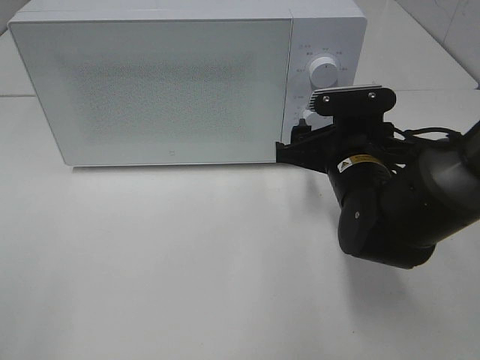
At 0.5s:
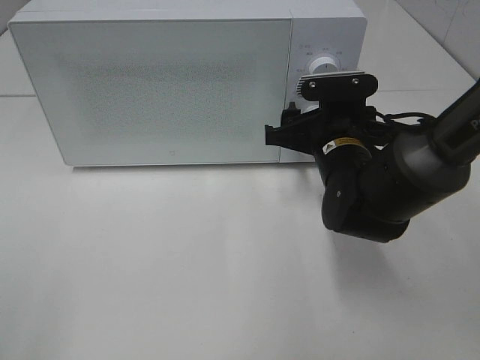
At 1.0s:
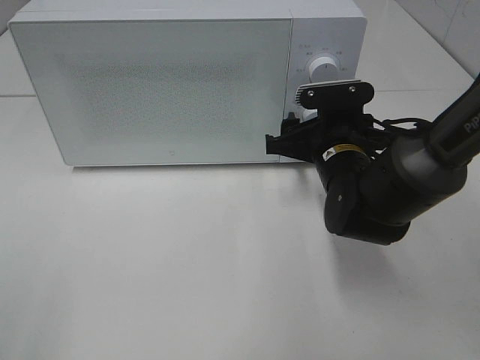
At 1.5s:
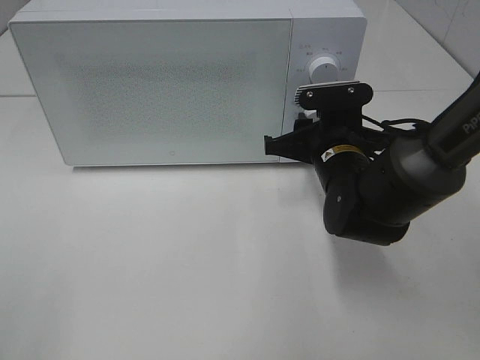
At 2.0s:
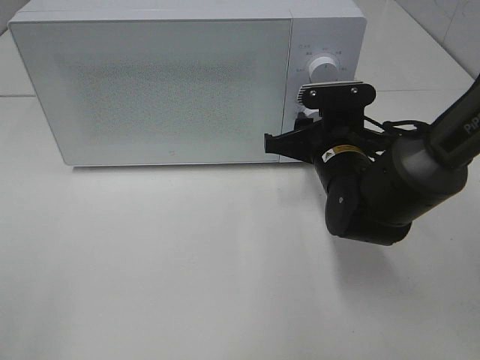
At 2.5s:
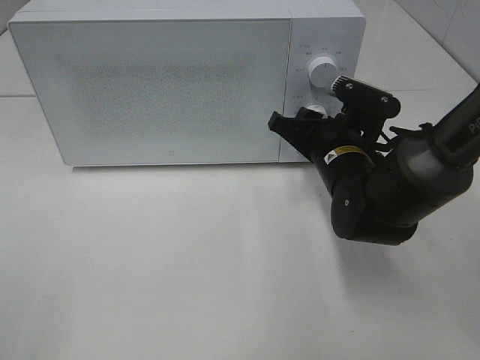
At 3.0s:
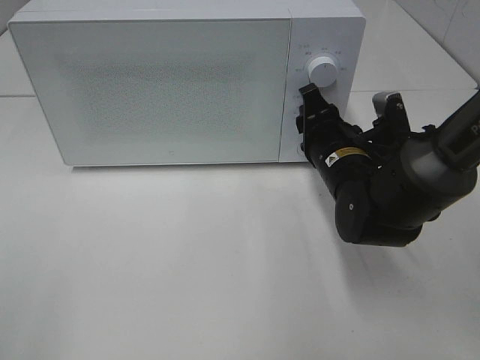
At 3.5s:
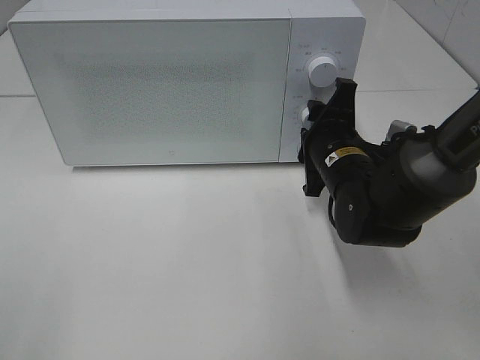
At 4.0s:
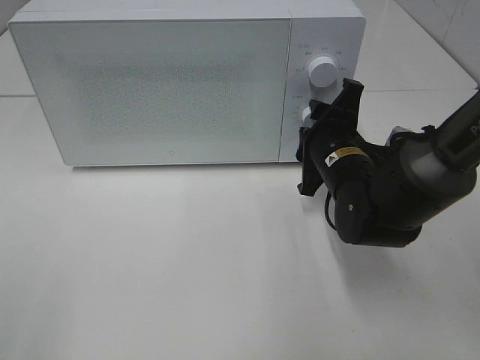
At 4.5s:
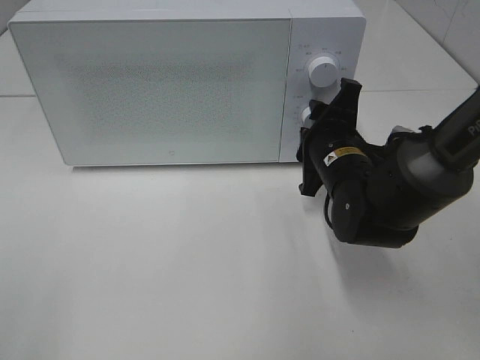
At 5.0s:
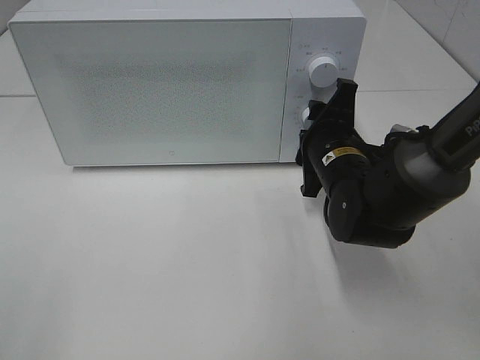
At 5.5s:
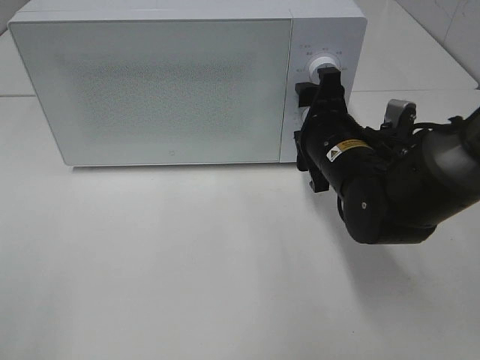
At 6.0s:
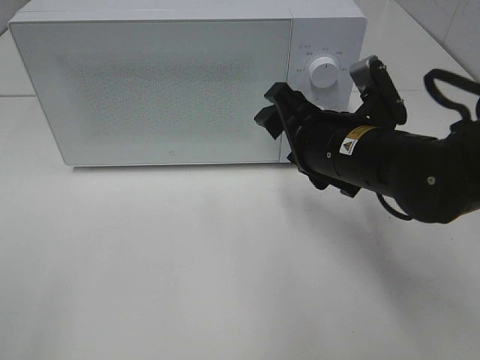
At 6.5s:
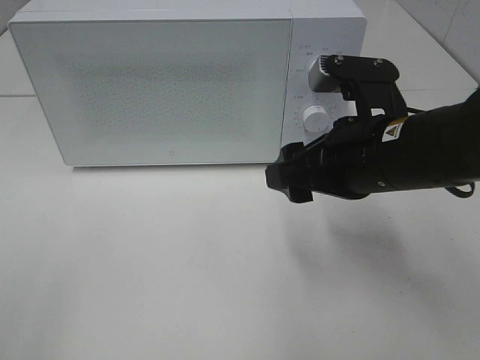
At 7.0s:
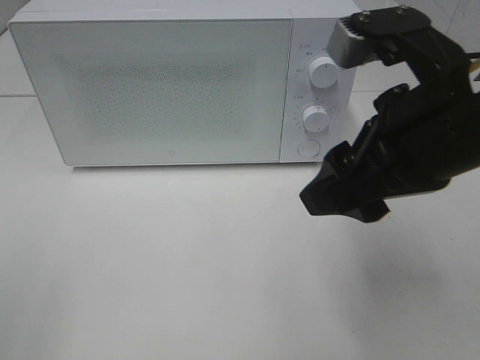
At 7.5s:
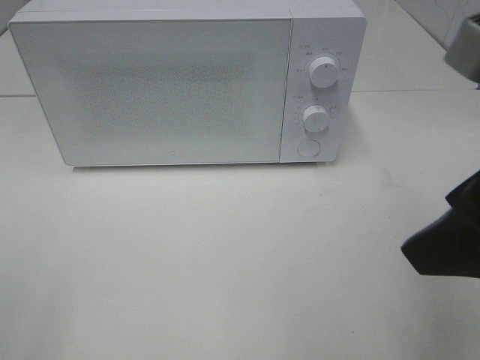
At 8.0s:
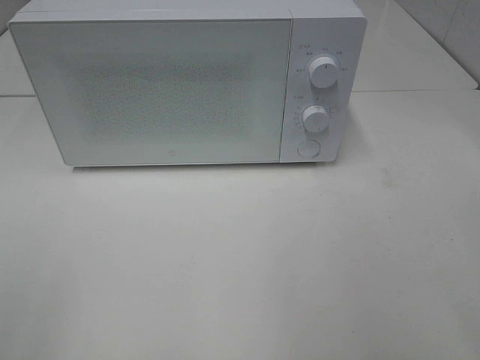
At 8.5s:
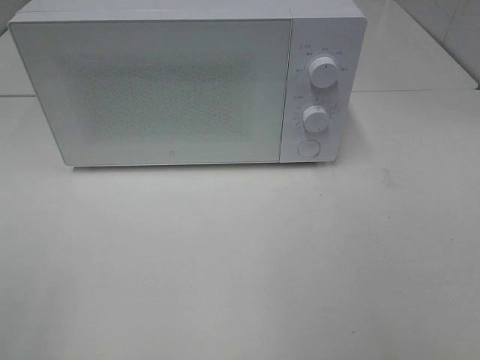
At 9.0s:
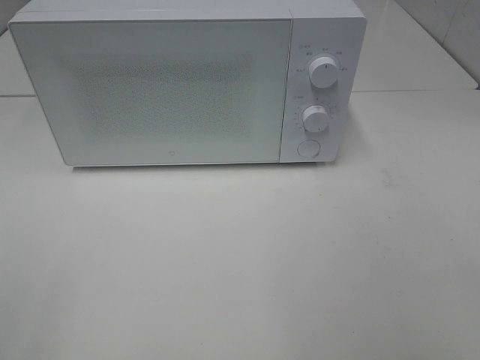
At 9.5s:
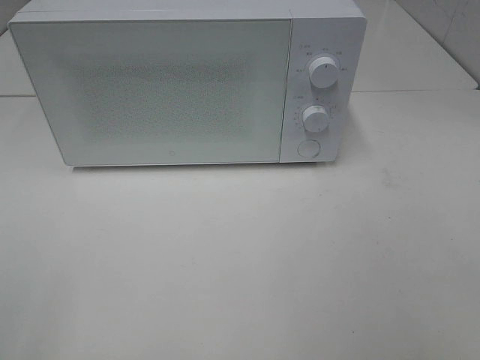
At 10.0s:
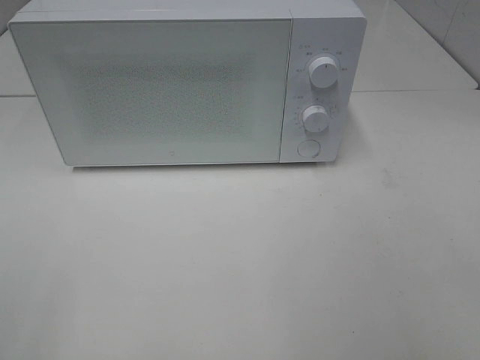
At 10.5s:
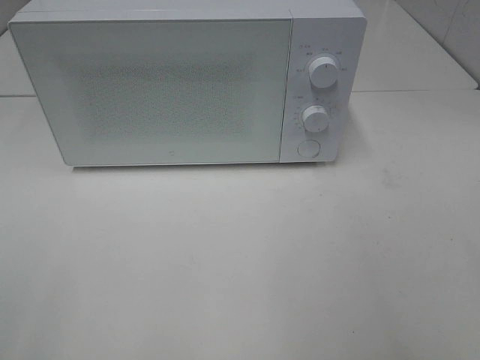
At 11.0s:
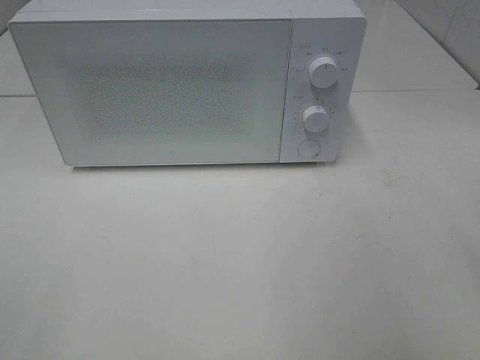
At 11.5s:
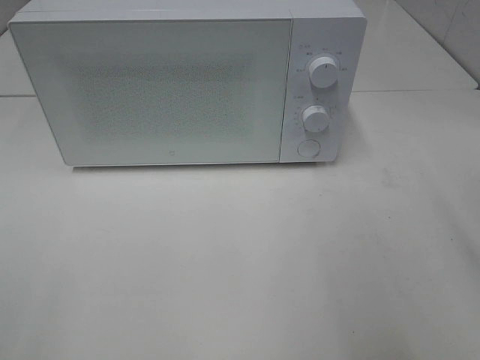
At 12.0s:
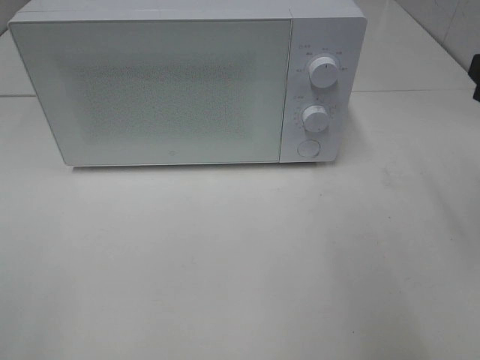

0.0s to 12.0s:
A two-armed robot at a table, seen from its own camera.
Task of the whole recording: Heat the burger.
Step, 0.0s to 5.0s: Right hand: twist timer button.
0.0s to 2.0s: The right gripper closes its fingers.
4.0s to 6.0s: The right gripper shifts roughly 10 cm upward and backward.
6.0s to 8.0s: The right gripper goes about 30 cm backward, upward and to the right.

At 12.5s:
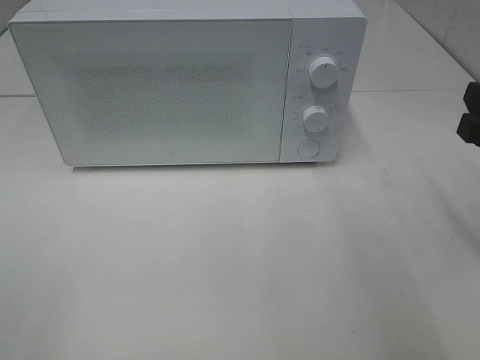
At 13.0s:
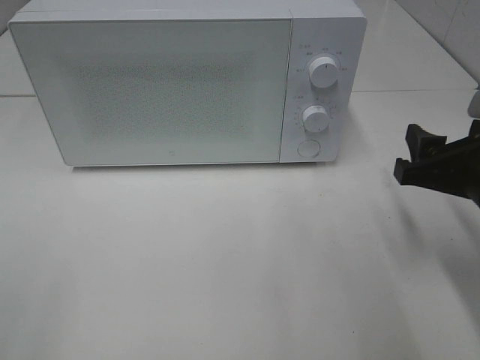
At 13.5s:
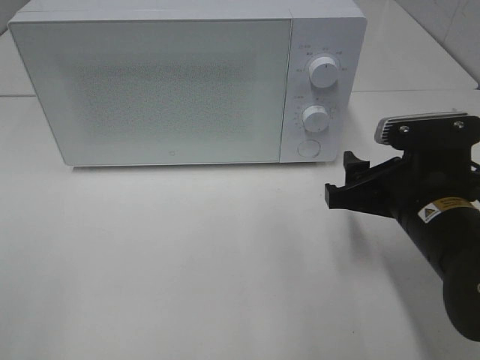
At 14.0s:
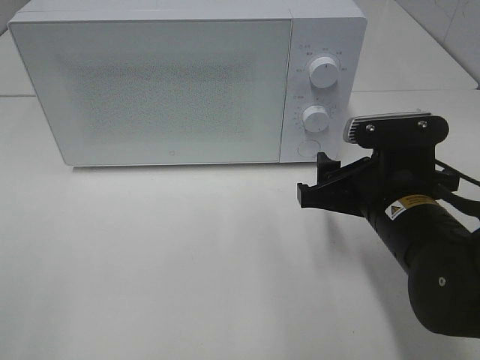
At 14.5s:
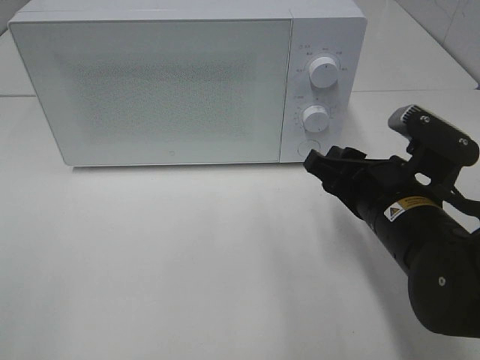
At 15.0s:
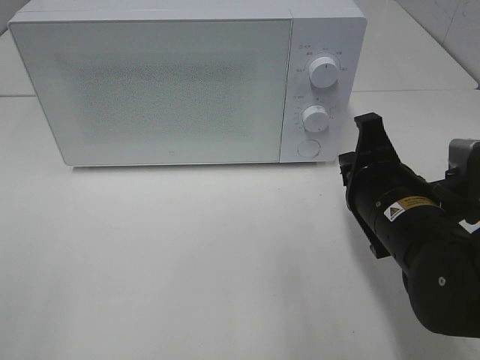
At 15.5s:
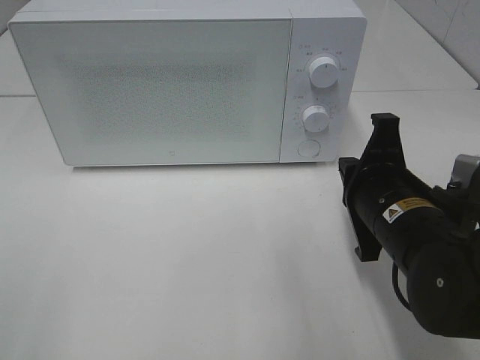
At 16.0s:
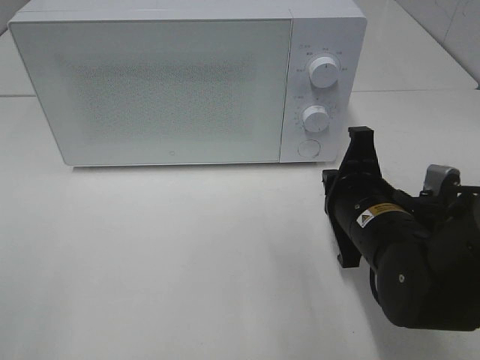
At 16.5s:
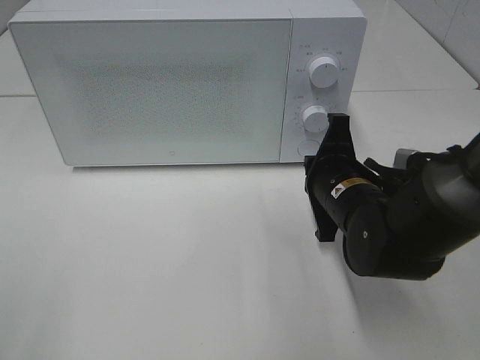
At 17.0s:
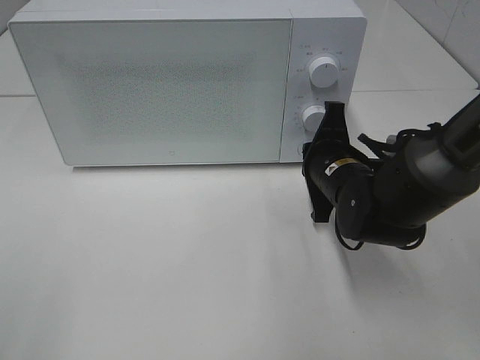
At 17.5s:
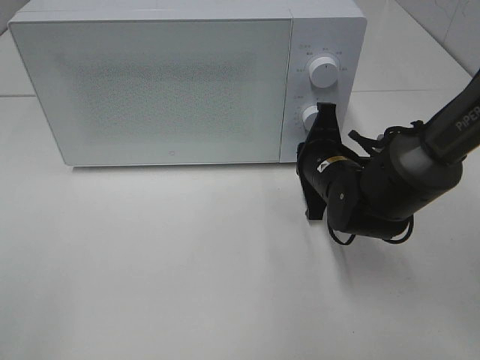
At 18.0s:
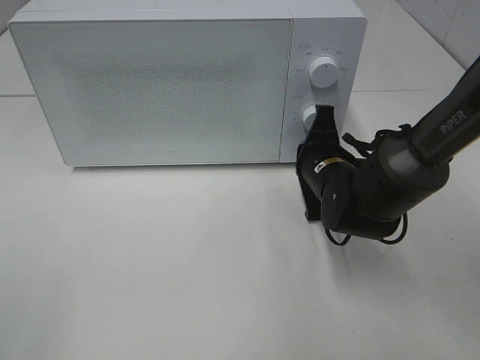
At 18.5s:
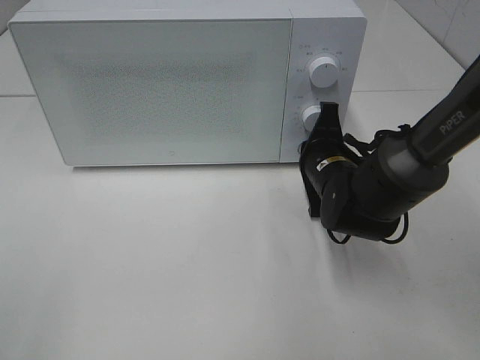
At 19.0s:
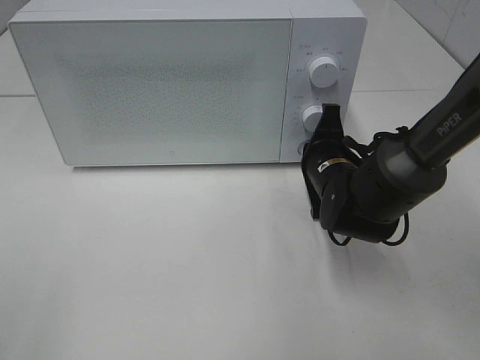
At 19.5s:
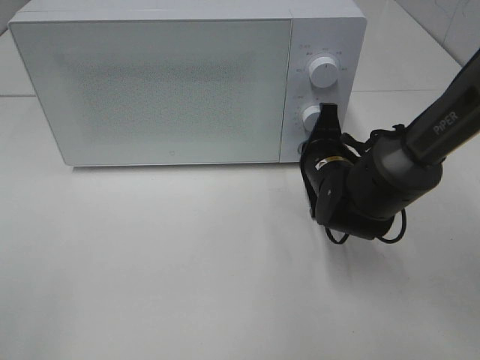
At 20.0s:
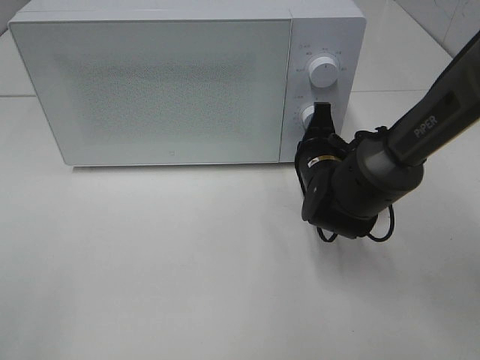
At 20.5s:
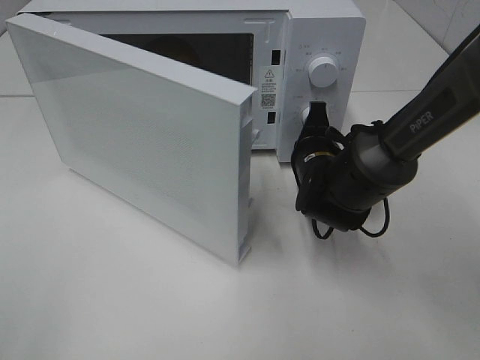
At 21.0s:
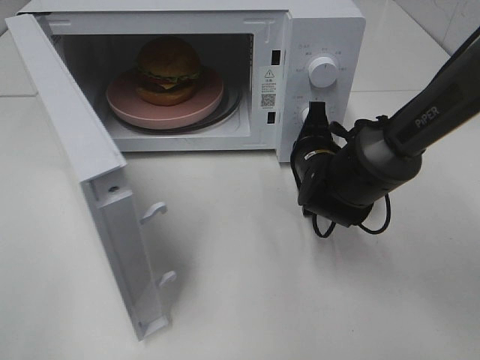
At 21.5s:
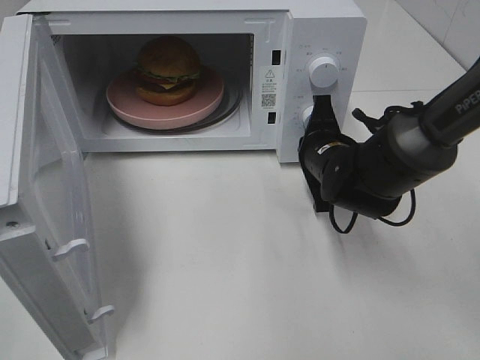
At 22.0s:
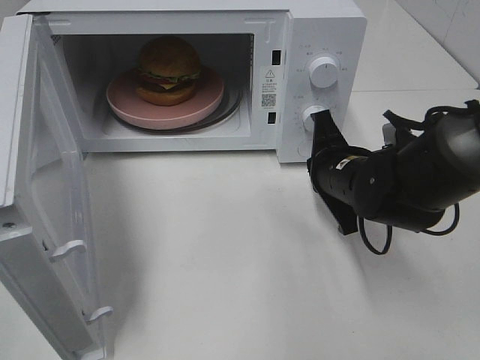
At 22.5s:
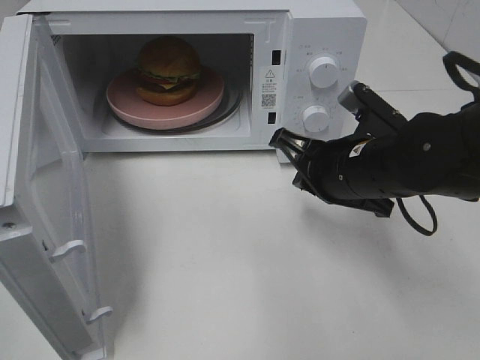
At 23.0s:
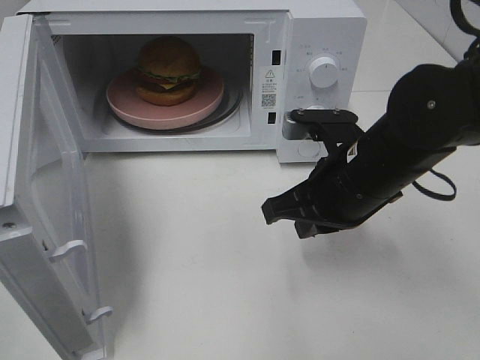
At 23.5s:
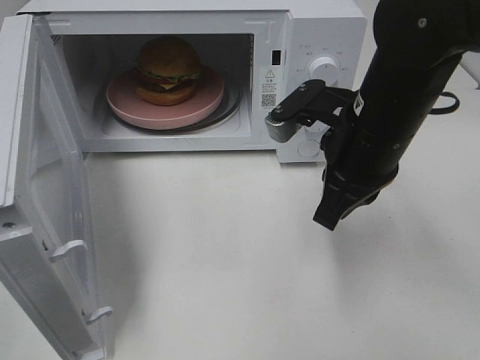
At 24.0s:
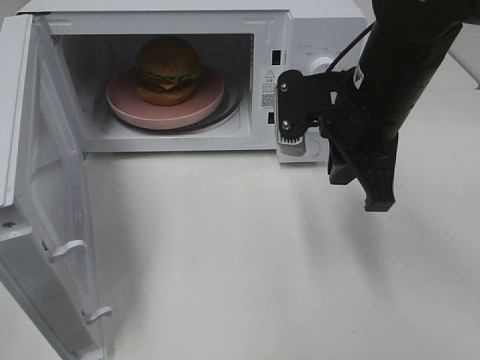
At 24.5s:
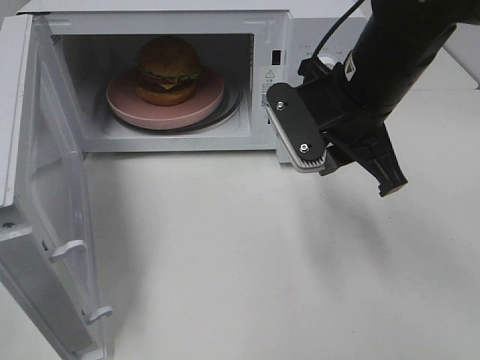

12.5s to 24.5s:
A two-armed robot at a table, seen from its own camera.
Task of the whole recording: Heat the burger.
Step, 12.5s to 21.5s: Right hand: press the switch.
12.5s to 14.5s: The right gripper heads to the left and downward, covering roughly 15 cm.
14.5s to 16.5s: The right gripper shifts about 5 cm forward, and closes up.
16.5s to 18.5s: The right gripper travels forward by roughly 5 cm.
20.5s to 22.5s: The right gripper shifts approximately 10 cm backward and upward.
22.5s to 24.5s: The right gripper goes some 10 cm upward, and opens up.

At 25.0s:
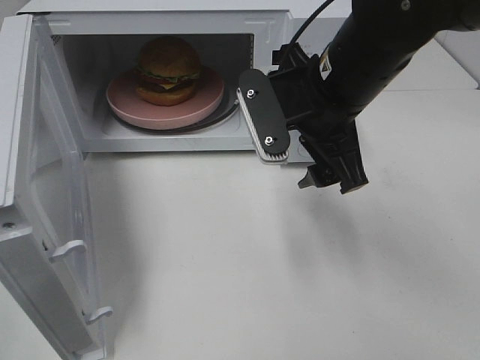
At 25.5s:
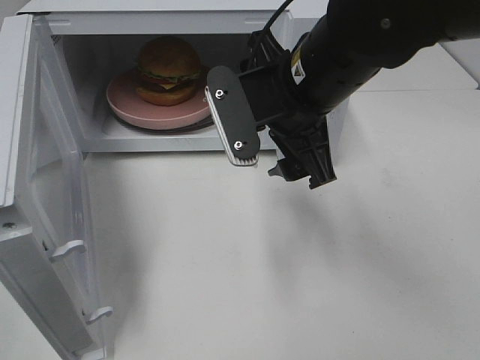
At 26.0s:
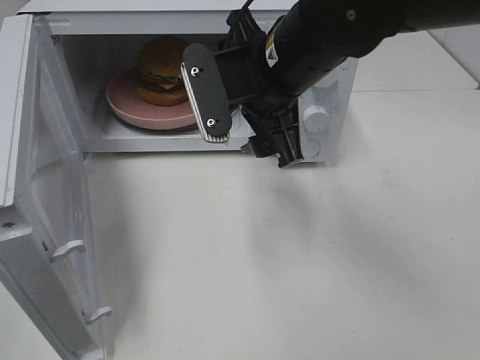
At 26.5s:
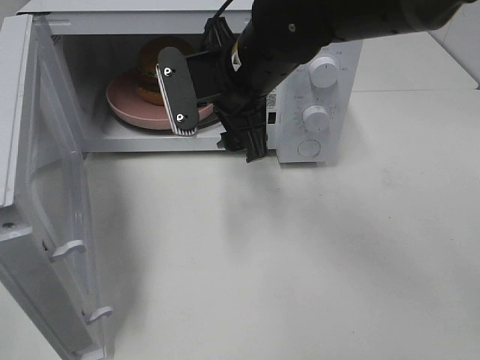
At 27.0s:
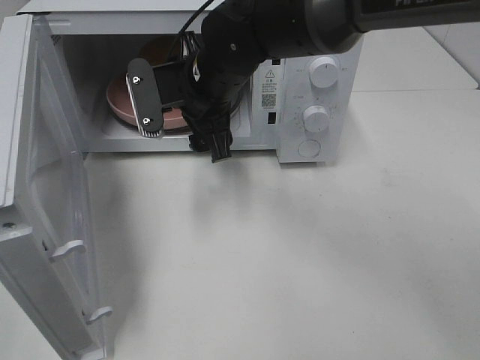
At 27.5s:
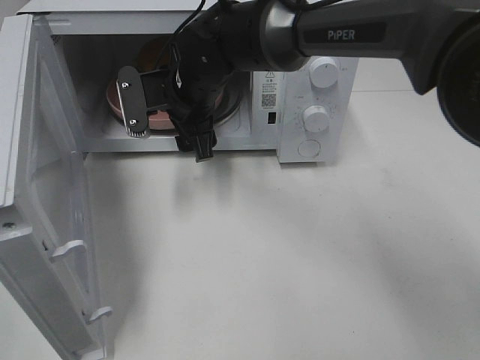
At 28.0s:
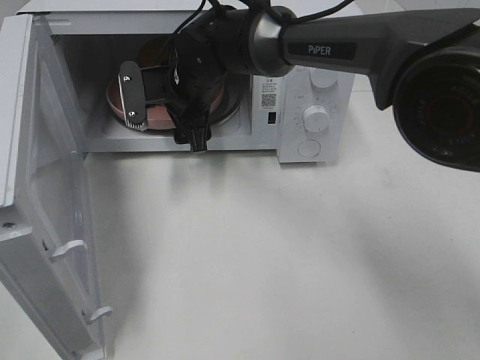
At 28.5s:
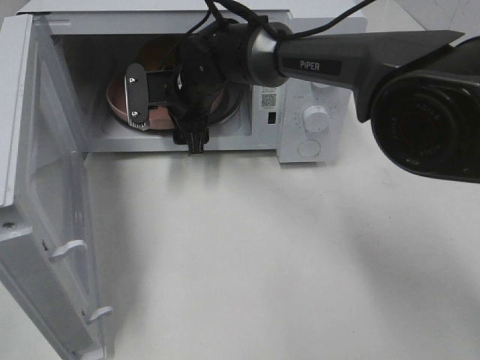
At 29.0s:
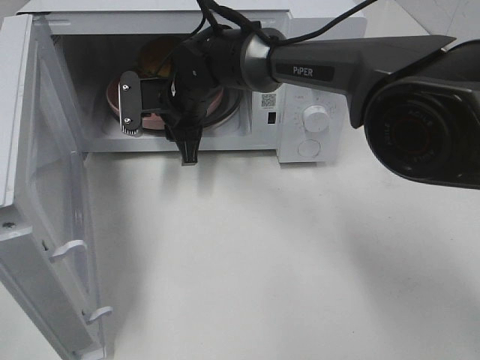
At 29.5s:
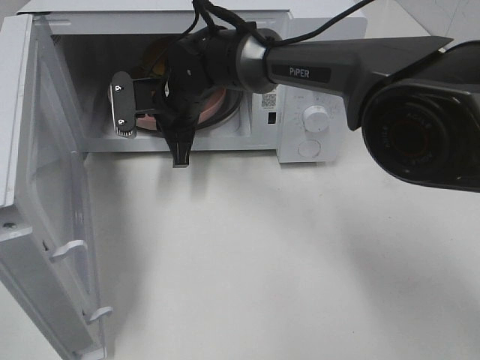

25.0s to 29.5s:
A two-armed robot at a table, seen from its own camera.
Task of the whole recording: Heat the burger.
Step, 25.0s to 29.0s: Right hand: grab the plate with the hamburger.
25.0s to 27.0s: The right gripper shifts about 15 cm to the left and forward.
27.0s to 29.5s: The right gripper moves forward and downward, roughly 10 cm, and closes its fingers.
